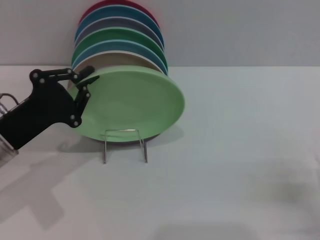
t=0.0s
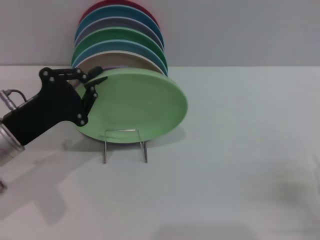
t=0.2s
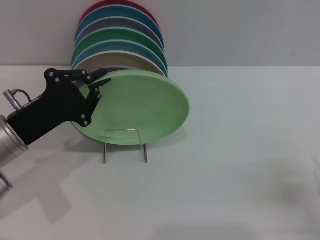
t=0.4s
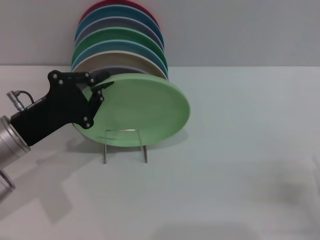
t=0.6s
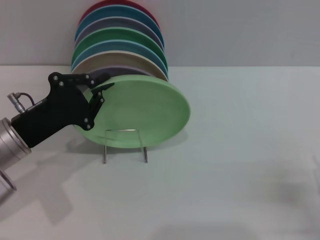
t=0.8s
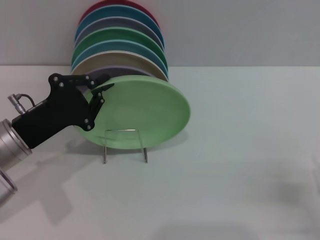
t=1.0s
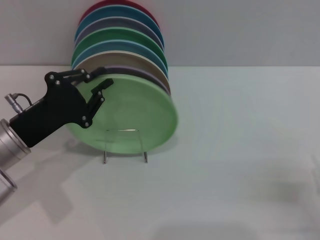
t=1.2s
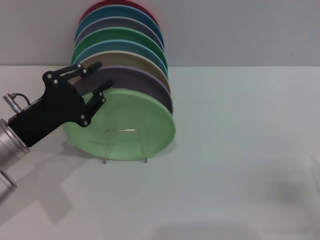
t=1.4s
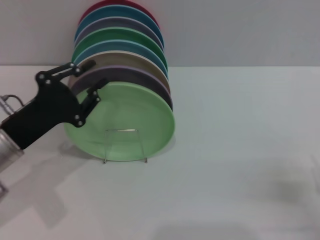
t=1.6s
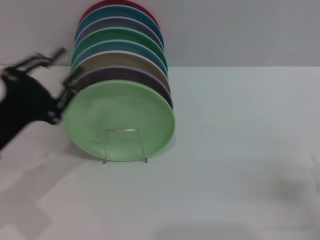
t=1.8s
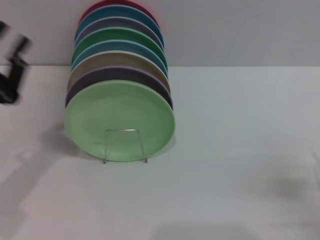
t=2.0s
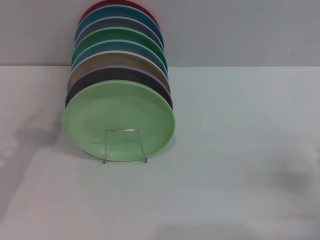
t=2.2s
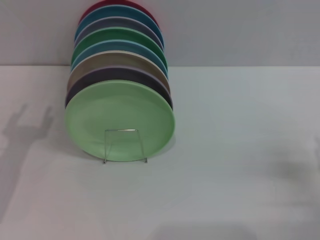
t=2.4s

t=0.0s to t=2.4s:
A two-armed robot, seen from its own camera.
Task of the whole recording: Grip the plate with one hand, pass it to the other, then set it on the shelf.
t=0.0s to t=1.2s: The grippers make only small movements.
t=1.2s to t=2.4s: The left gripper moves to the left, roughly 5 cm.

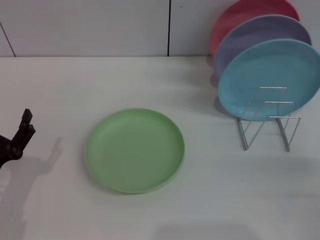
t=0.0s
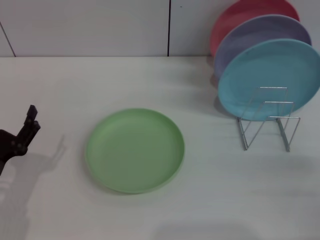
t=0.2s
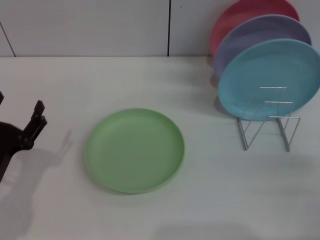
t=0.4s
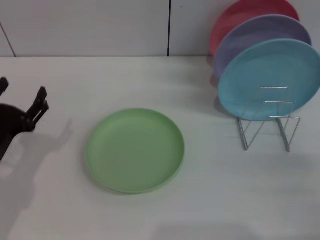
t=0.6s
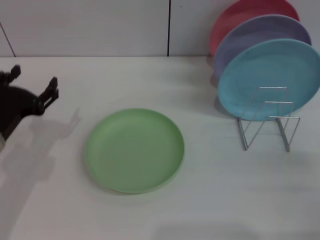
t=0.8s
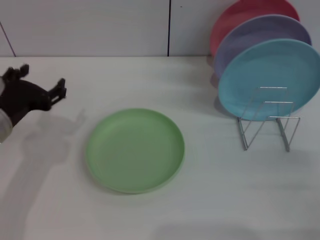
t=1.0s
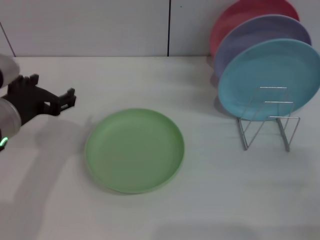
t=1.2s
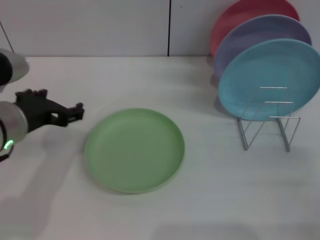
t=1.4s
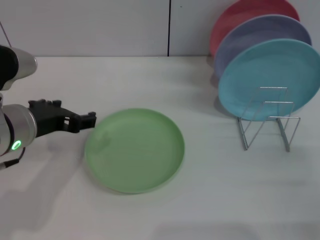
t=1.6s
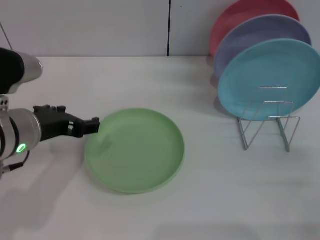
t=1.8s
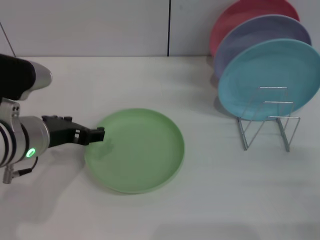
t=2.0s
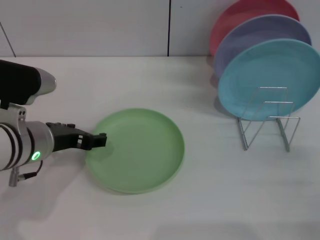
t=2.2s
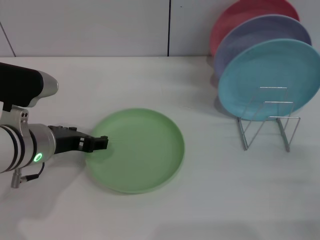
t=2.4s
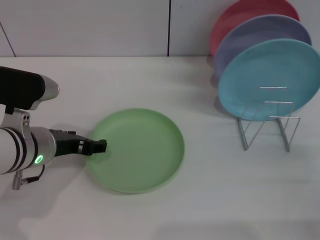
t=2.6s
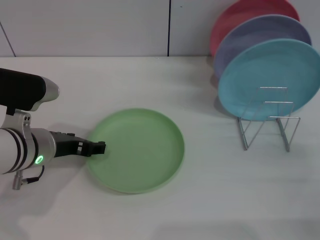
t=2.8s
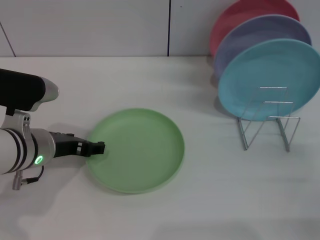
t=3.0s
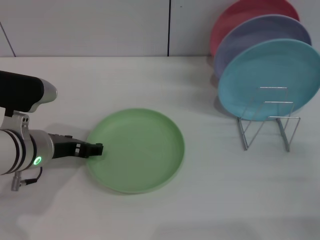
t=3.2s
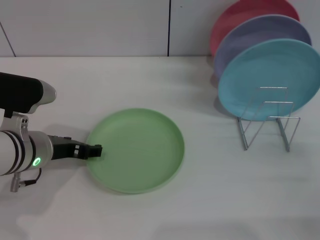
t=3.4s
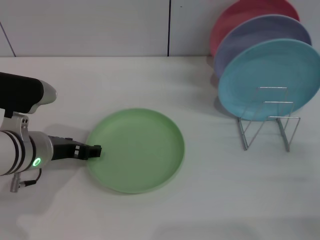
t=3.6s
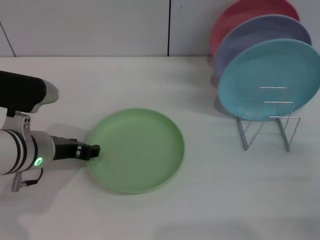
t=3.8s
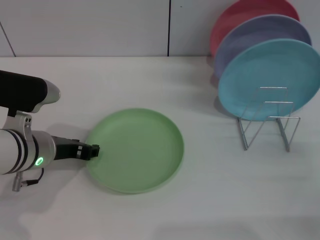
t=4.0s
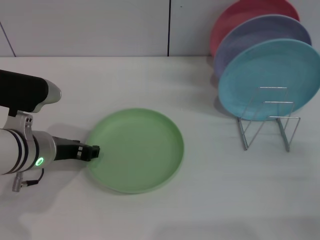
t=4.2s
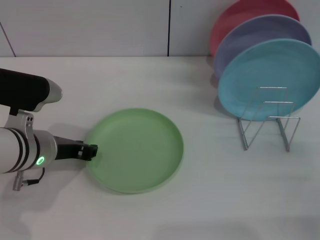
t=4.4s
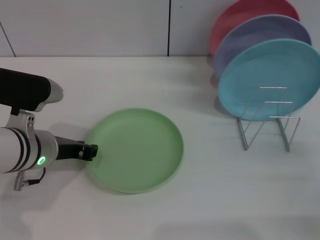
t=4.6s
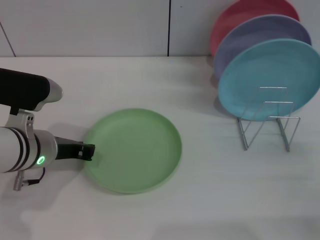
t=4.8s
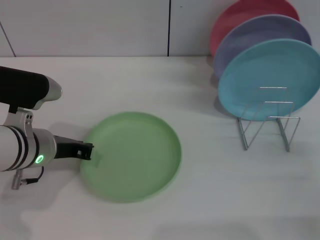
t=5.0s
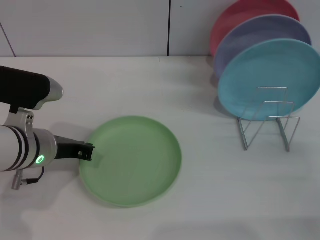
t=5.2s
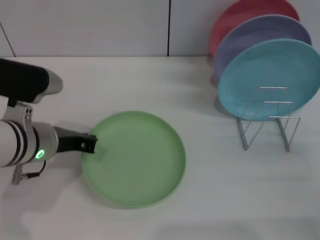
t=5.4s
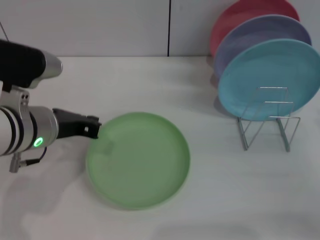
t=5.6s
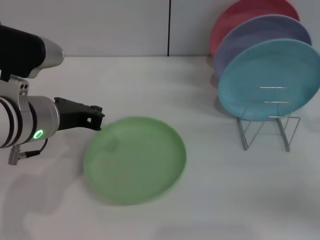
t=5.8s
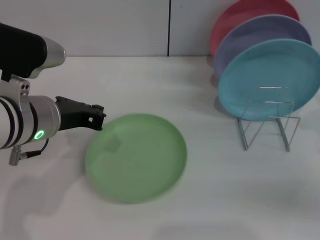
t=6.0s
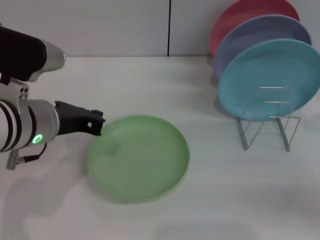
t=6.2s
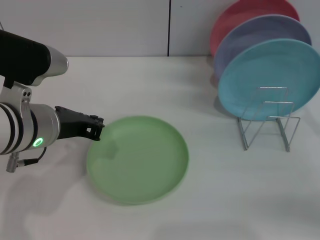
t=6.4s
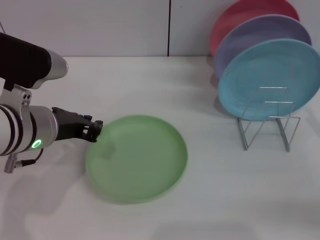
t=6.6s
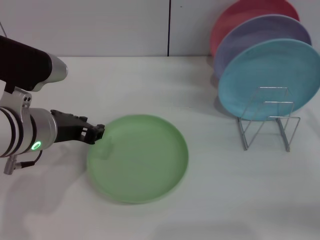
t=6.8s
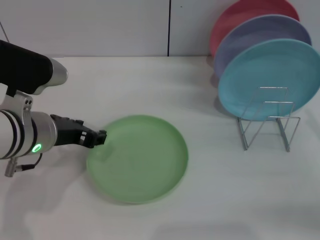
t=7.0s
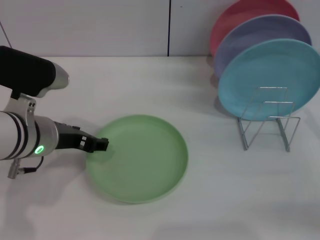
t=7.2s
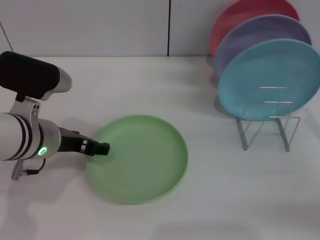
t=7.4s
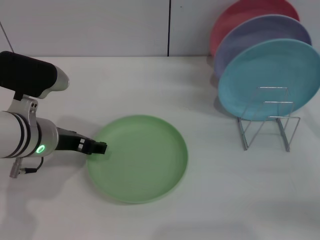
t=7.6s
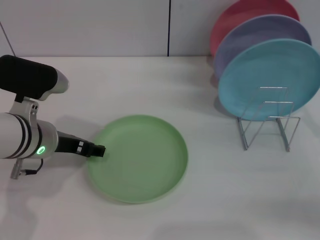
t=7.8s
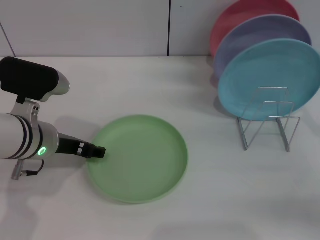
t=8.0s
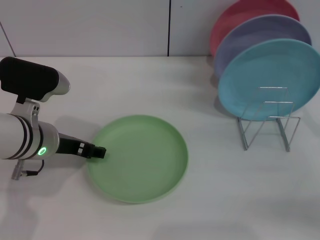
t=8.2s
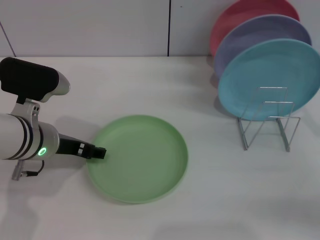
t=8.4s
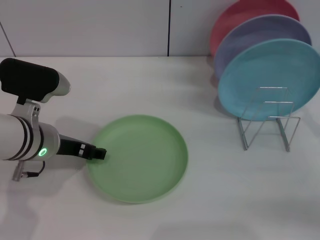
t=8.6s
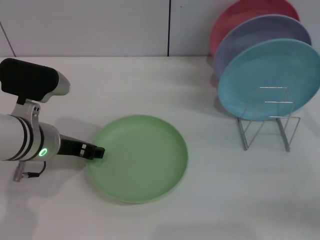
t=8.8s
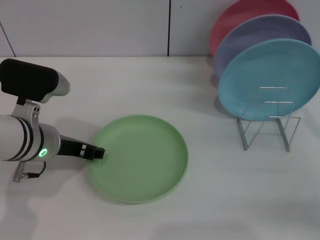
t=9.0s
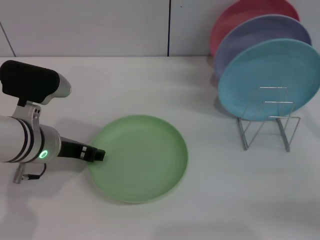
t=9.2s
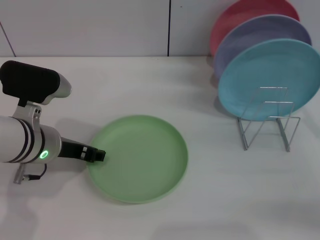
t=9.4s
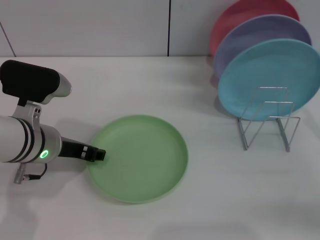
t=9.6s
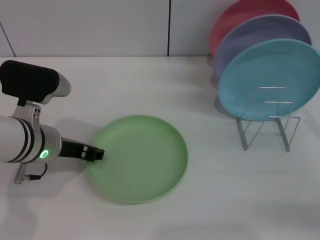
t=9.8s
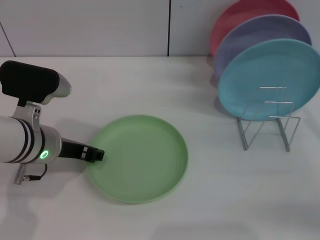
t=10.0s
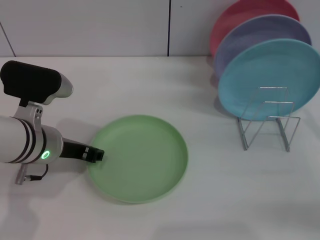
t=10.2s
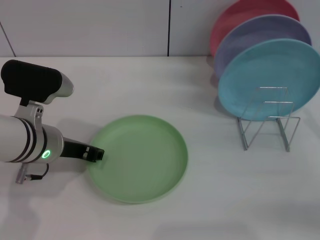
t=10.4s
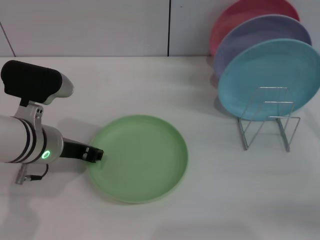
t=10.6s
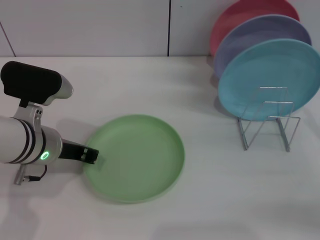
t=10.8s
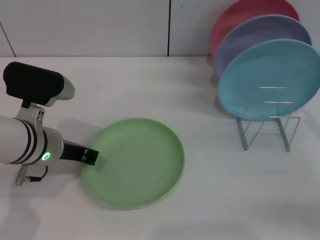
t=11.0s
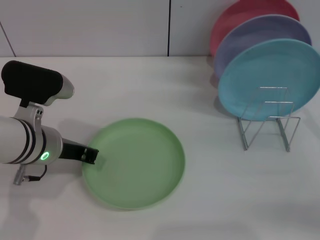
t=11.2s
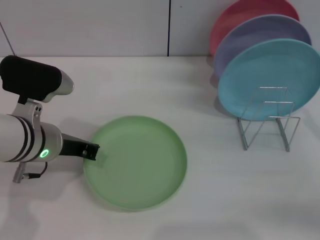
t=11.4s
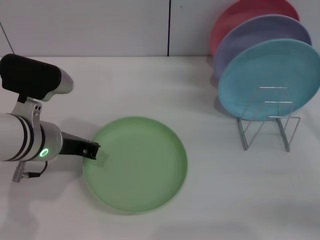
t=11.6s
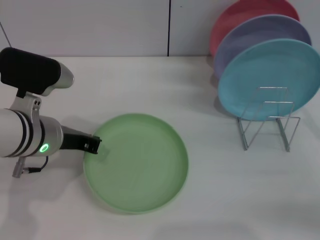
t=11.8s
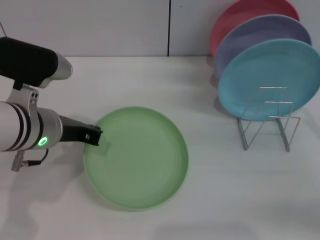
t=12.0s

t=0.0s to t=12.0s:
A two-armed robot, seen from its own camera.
Task of the whole recording: Grip the plate with one hand, pass it to the other, then set it on the shelf.
t=0.0s to t=1.6s: The left gripper is displaced upward, forward and to the right by some 20 cm.
t=1.6s to t=3.0s: The left gripper heads downward, covering some 5 cm.
t=3.0s to t=4.4s: The left gripper closes up.
t=4.4s to t=6.0s: The right gripper moves upward and forward, some 10 cm. The left gripper heads upward, covering roughly 5 cm, and closes up.
t=6.0s to t=7.6s: The left gripper shifts by some 5 cm, and opens up.
t=7.6s to t=10.4s: Both grippers stay put.
t=10.4s to t=12.0s: The left gripper closes up.

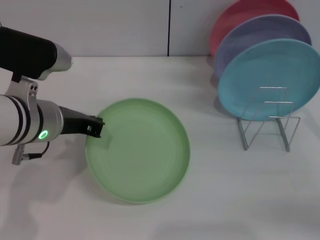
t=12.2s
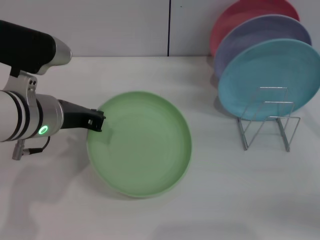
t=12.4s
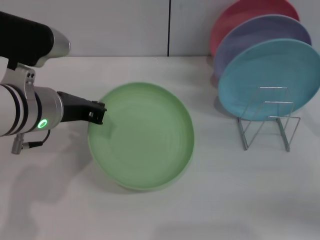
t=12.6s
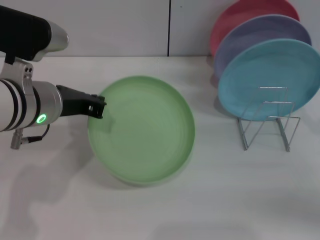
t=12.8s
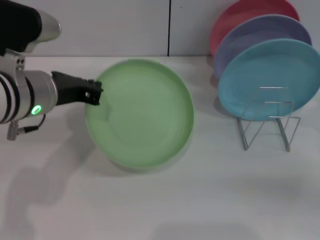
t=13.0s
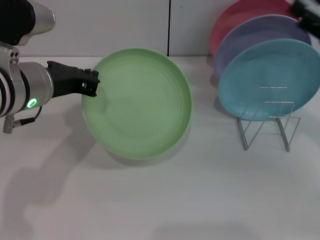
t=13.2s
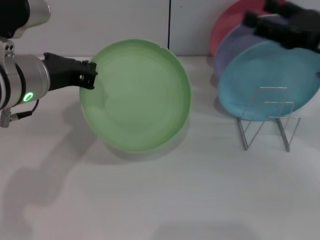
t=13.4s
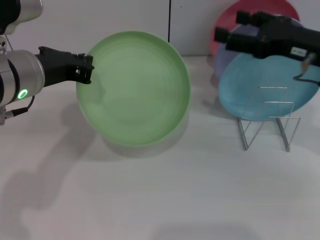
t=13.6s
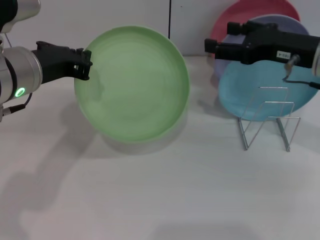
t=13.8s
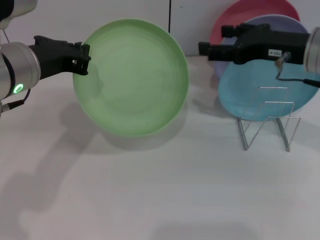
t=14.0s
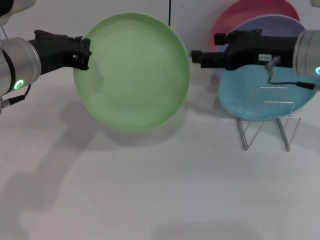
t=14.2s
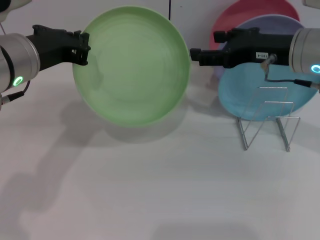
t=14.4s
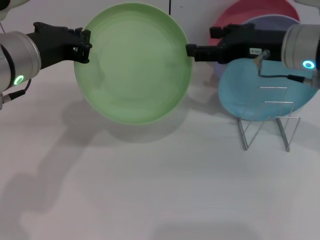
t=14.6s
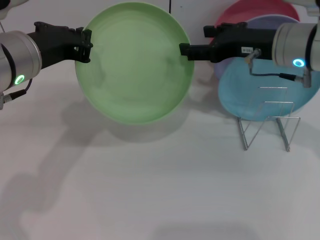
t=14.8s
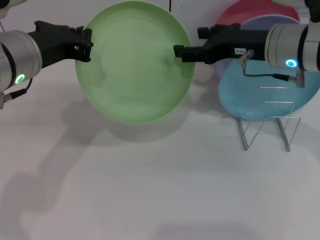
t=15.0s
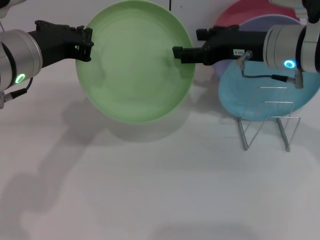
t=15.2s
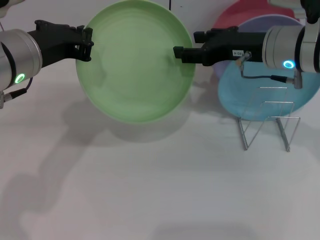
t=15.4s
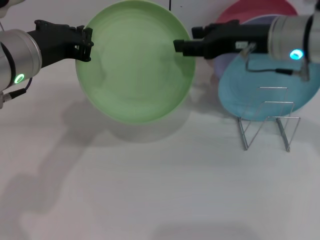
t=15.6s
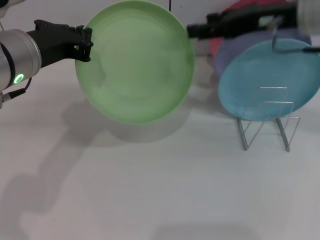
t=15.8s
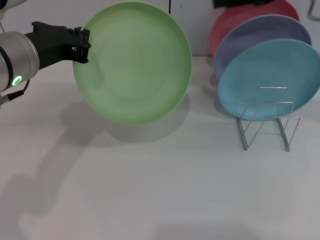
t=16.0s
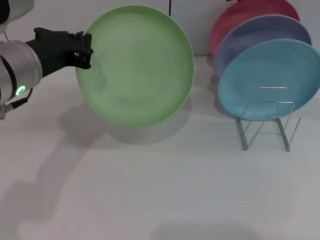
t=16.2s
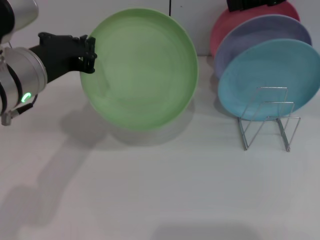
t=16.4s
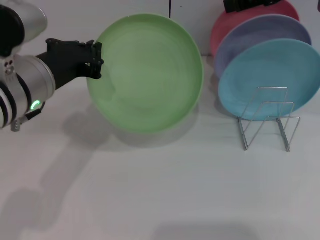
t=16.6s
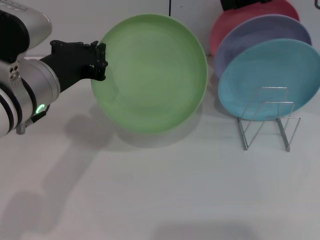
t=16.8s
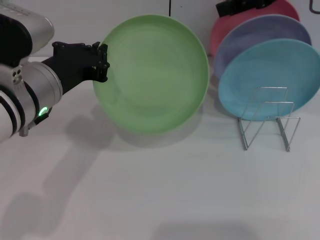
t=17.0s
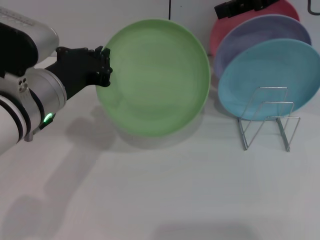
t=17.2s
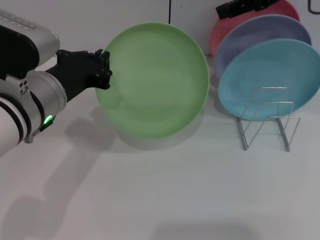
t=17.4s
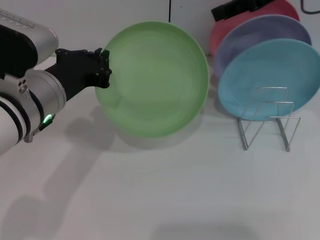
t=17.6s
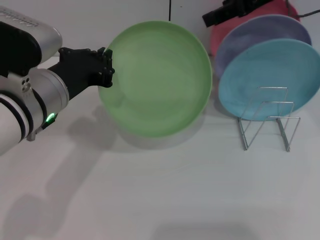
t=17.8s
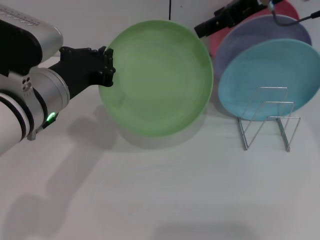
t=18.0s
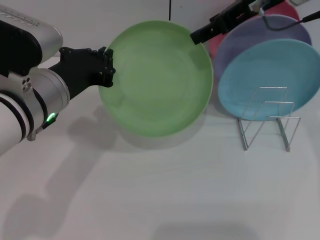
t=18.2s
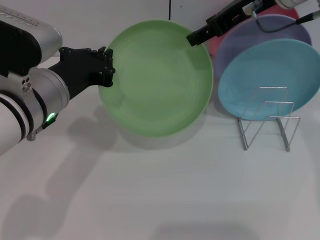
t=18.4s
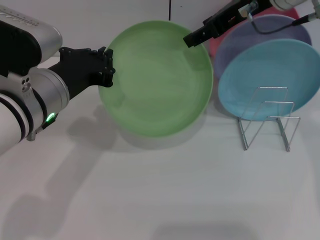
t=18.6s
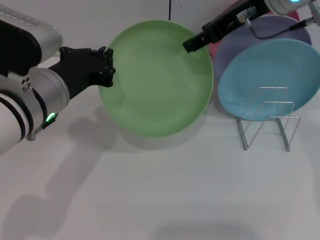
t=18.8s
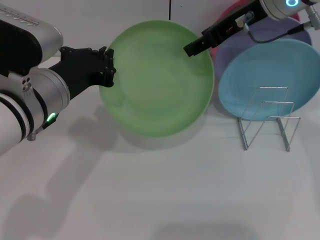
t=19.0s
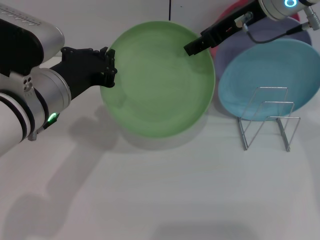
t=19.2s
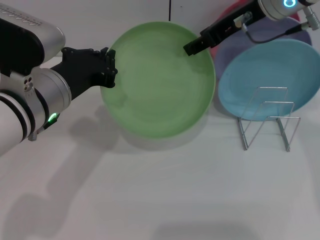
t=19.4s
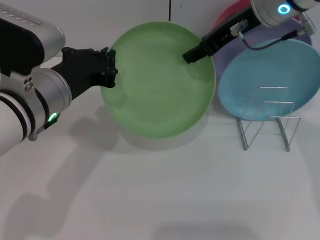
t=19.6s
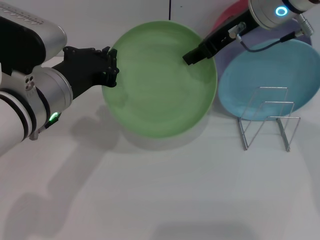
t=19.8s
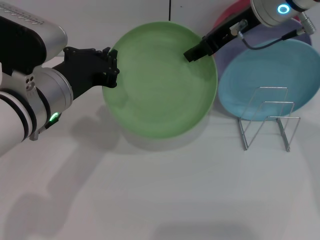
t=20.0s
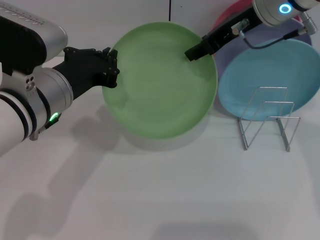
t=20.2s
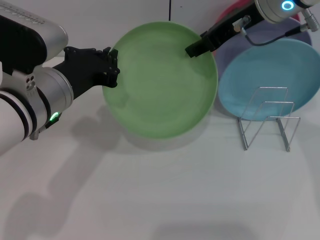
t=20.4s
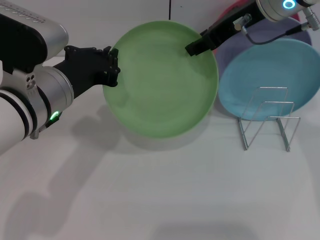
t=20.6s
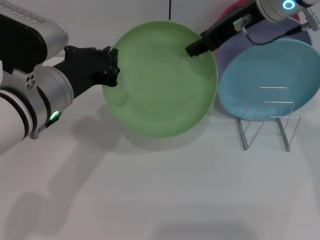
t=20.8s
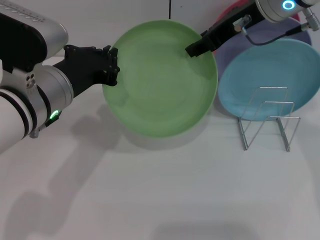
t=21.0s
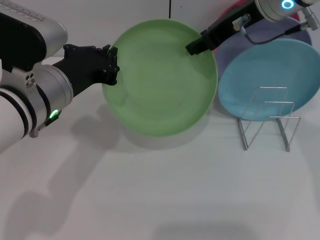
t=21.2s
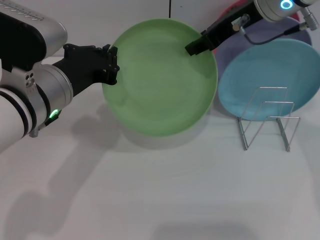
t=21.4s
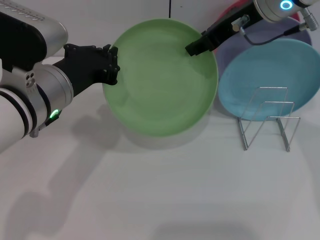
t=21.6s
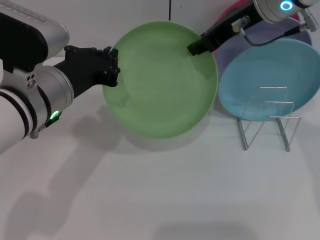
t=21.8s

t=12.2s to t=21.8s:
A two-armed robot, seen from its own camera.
Task of the whole recording: Grip the plate with one hand, pass it to the other, then set it on the shelf.
t=12.2s to t=13.8s: The right gripper is displaced to the left, forward and upward by about 20 cm. Meanwhile the left gripper travels upward by some 5 cm.
t=13.8s to t=15.4s: The right gripper travels to the left by some 5 cm.
t=15.4s to t=17.0s: The right gripper is displaced upward by approximately 15 cm.
t=17.0s to t=18.6s: The right gripper is displaced to the left by approximately 5 cm.
t=18.6s to t=20.2s: The grippers make only small movements.
t=20.2s to t=21.8s: Both grippers stay about where they are.
